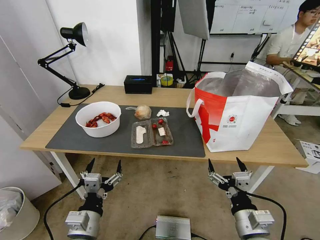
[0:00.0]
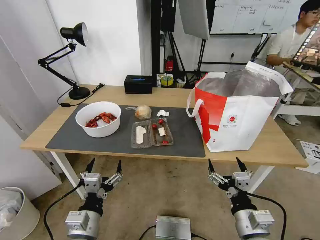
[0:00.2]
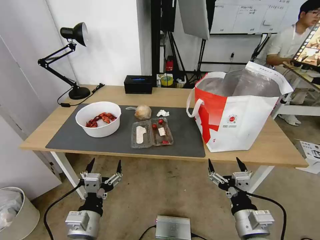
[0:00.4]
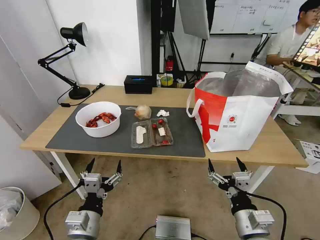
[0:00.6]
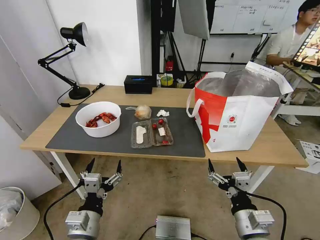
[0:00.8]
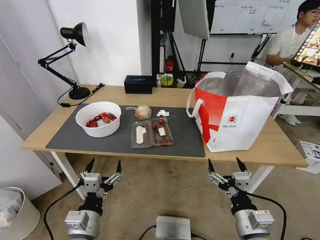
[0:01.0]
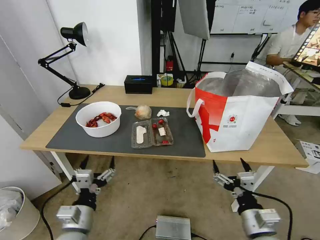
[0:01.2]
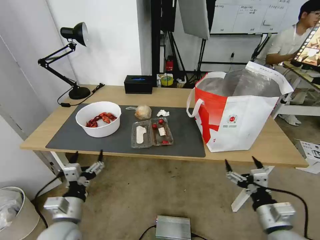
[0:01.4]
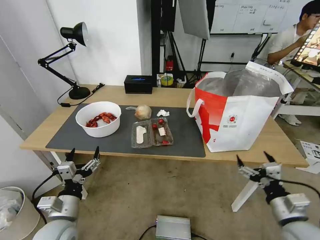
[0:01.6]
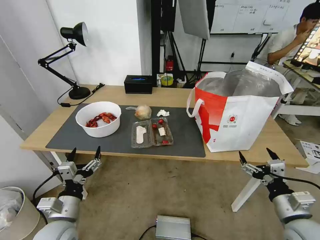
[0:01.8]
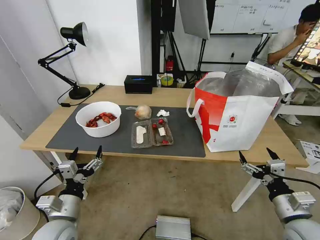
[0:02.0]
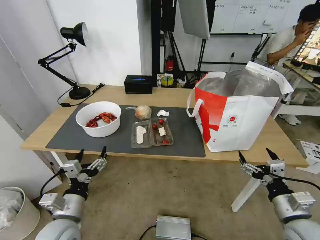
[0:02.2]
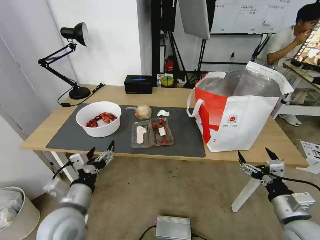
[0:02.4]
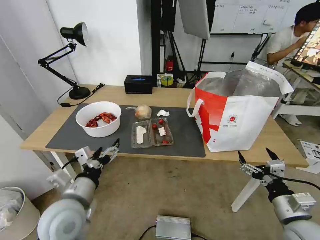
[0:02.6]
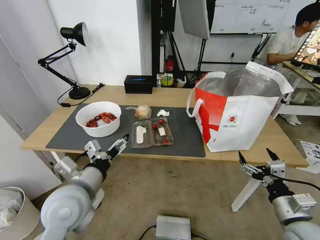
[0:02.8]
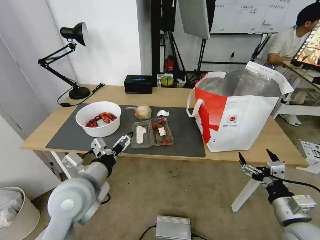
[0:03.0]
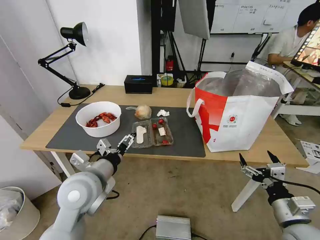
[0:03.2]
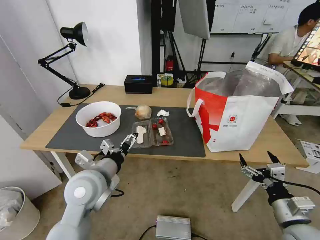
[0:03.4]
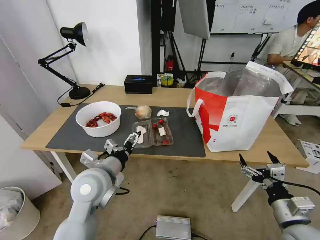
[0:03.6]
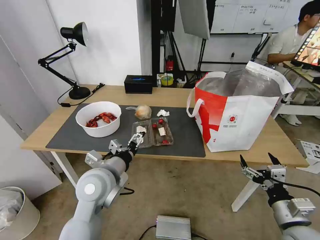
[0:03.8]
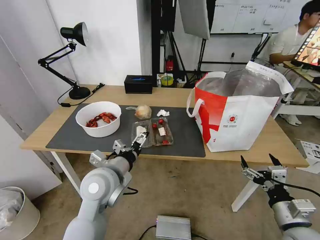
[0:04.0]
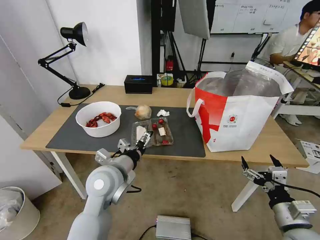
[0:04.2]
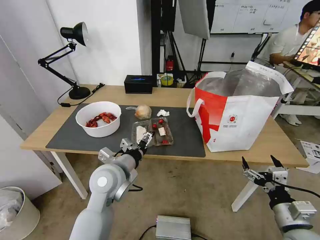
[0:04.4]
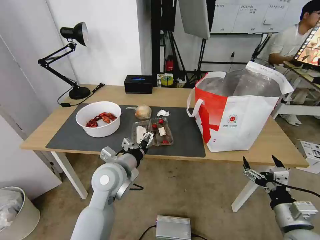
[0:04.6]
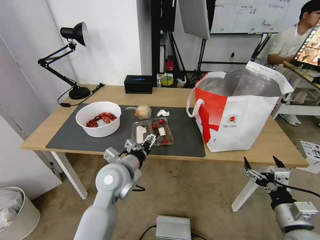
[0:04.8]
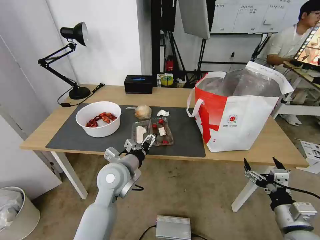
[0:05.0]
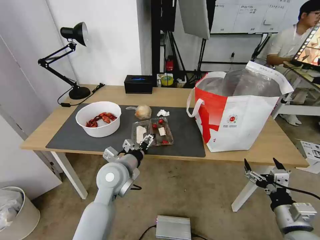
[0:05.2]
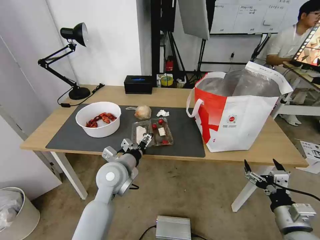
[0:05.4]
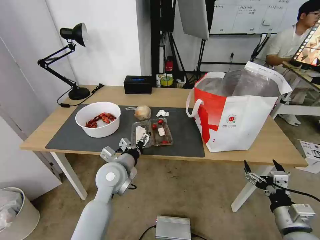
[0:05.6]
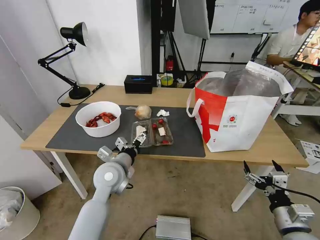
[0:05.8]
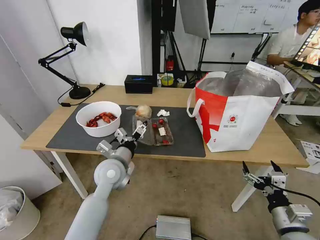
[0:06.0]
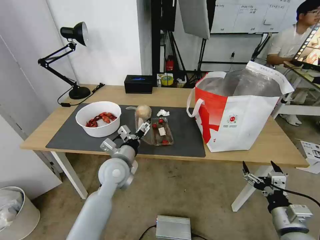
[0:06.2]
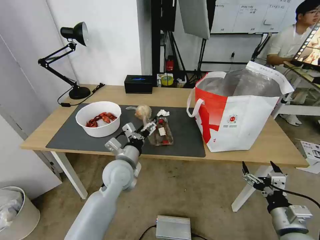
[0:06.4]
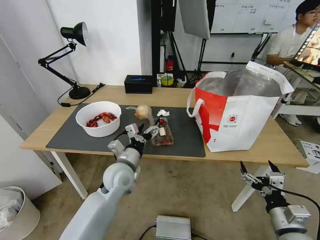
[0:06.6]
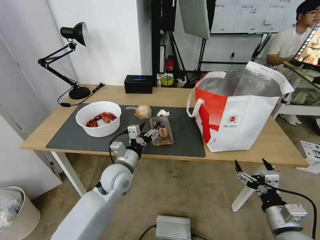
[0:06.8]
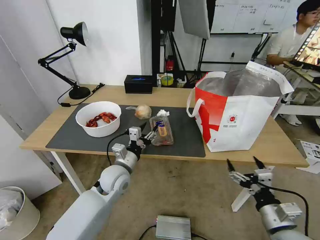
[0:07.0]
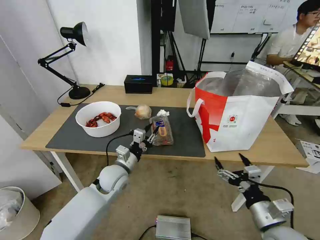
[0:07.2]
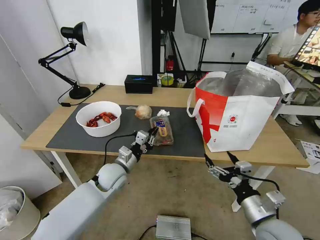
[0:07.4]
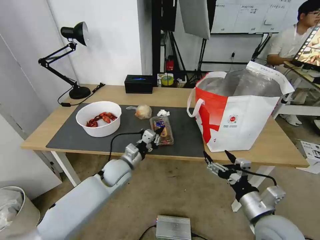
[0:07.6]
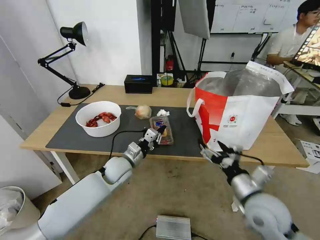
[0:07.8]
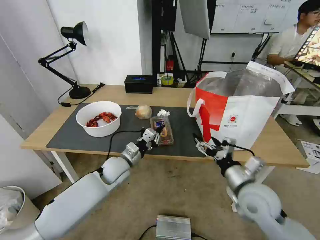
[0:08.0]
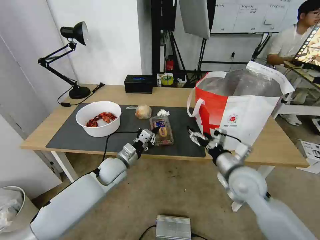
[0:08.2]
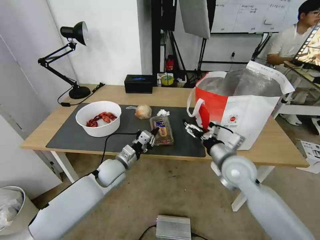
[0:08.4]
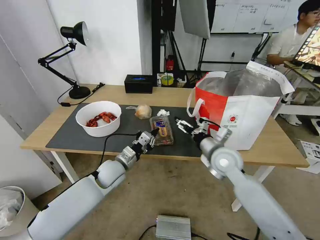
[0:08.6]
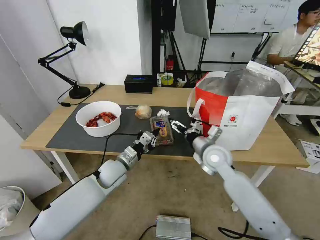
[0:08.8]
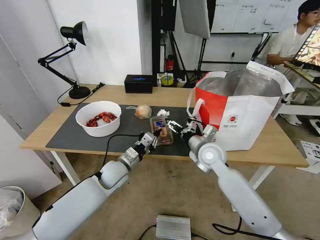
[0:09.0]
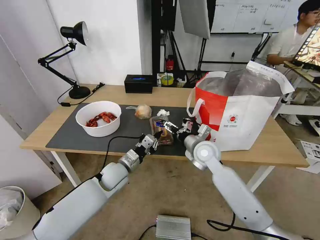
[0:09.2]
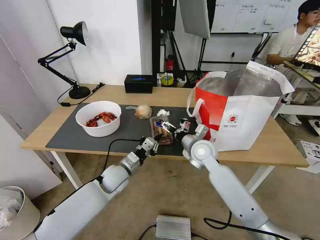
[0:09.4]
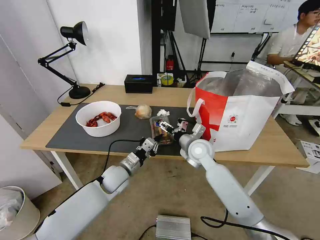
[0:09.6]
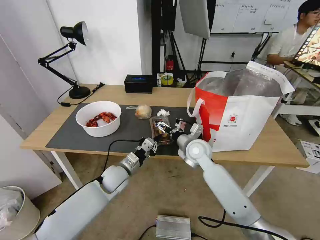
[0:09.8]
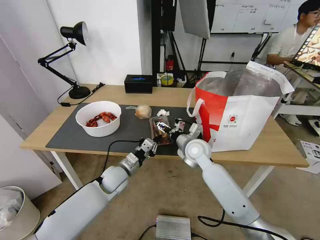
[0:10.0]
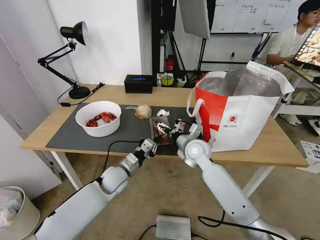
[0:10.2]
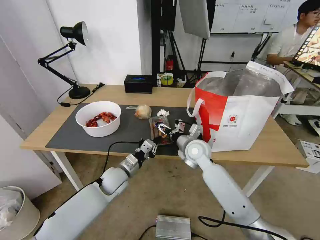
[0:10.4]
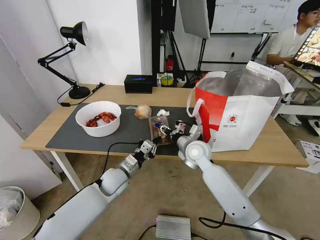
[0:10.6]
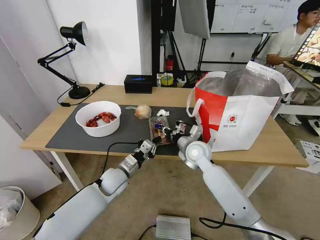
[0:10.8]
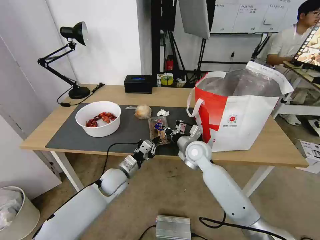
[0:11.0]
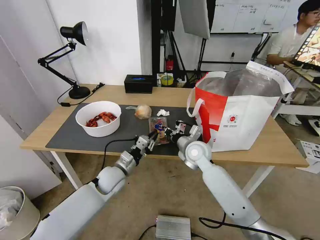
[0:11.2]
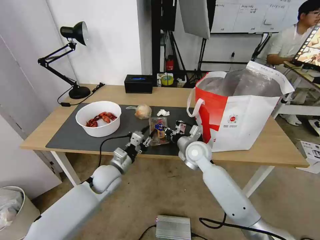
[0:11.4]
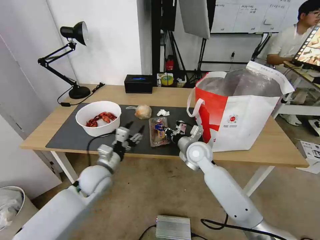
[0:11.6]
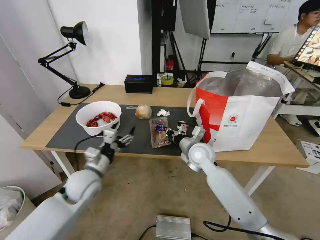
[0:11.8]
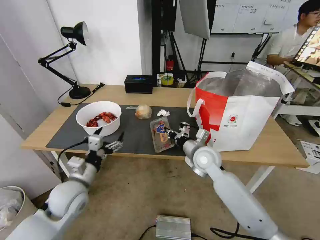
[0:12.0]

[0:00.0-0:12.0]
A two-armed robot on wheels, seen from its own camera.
Task of the whole recording: Pick up the trash from the table and place it into the takeout bag.
0:01.6 to 0:03.0: The left gripper is displaced upward, to the right and forward by roughly 15 cm.
0:03.0 to 0:04.4: The left gripper shifts roughly 10 cm to the right and forward.
0:04.4 to 0:06.0: The left gripper changes place by about 5 cm.
0:06.0 to 0:07.6: The left gripper heads downward, covering approximately 5 cm, and closes up. The right gripper moves to the left, roughly 10 cm.
0:07.6 to 0:09.0: The right gripper shifts roughly 25 cm forward and to the left.
0:09.0 to 0:10.4: The grippers stay close to where they were, moving slightly.
0:10.4 to 0:12.0: The right gripper closes up, while the left gripper is displaced to the left, backward and upward by roughly 15 cm, and opens its fingers.

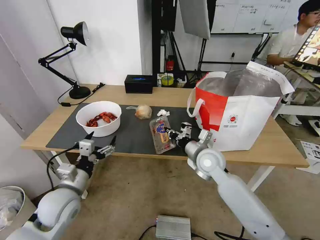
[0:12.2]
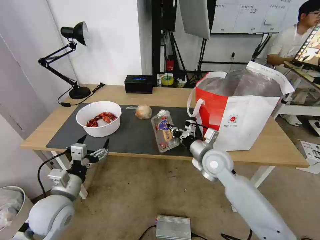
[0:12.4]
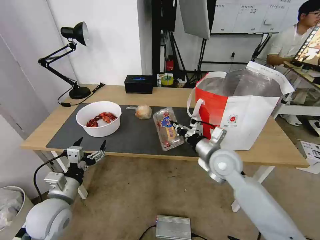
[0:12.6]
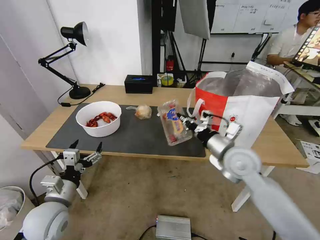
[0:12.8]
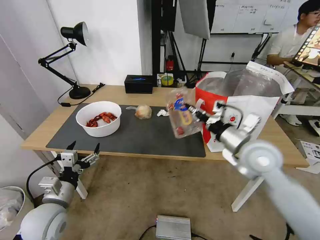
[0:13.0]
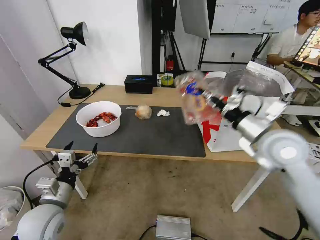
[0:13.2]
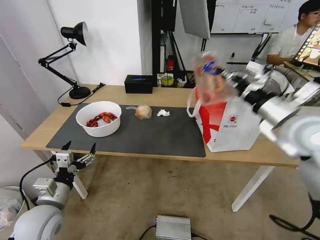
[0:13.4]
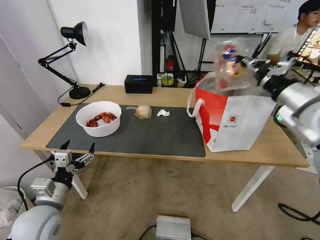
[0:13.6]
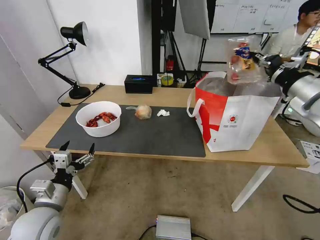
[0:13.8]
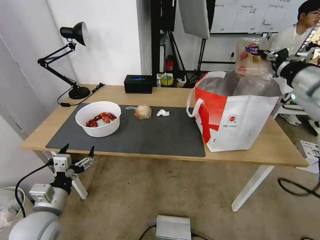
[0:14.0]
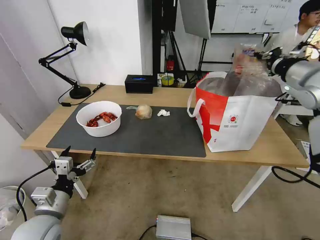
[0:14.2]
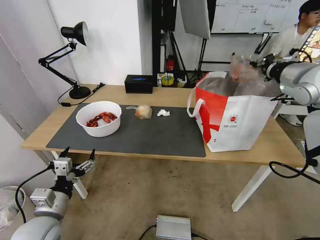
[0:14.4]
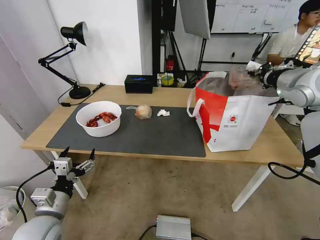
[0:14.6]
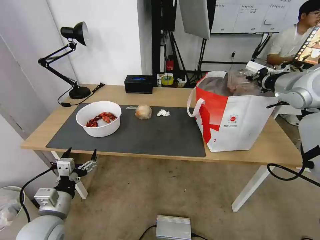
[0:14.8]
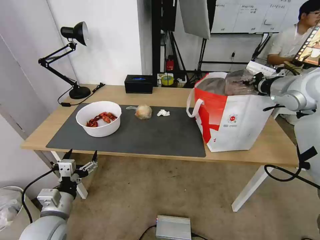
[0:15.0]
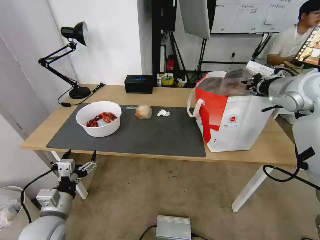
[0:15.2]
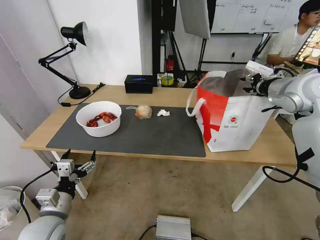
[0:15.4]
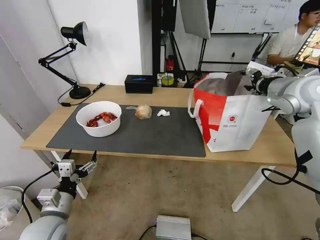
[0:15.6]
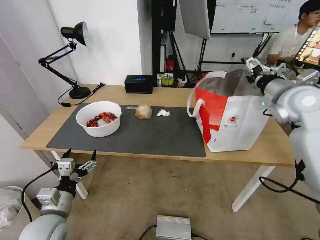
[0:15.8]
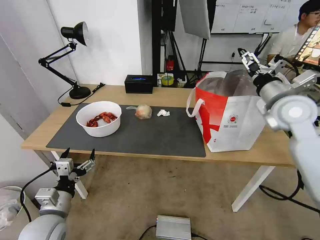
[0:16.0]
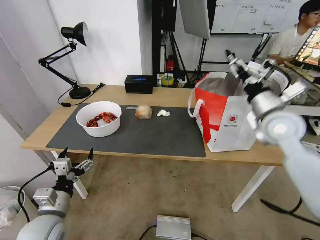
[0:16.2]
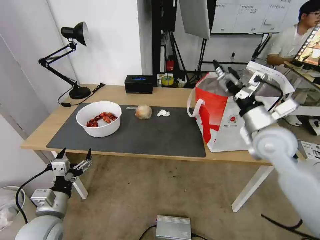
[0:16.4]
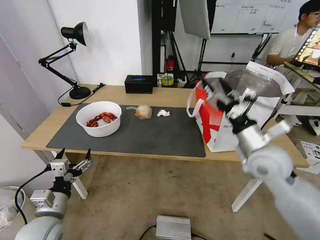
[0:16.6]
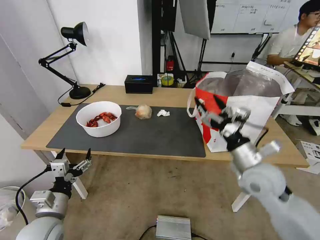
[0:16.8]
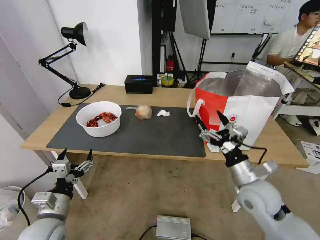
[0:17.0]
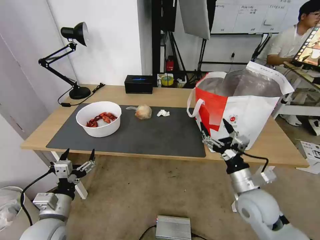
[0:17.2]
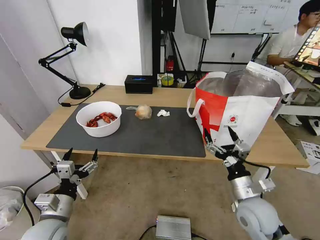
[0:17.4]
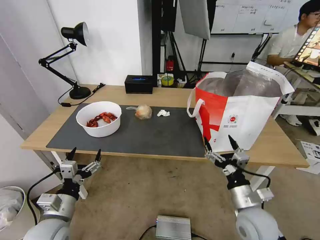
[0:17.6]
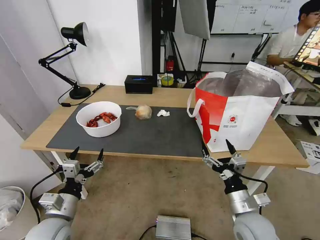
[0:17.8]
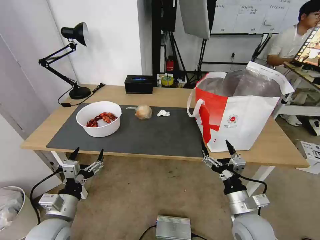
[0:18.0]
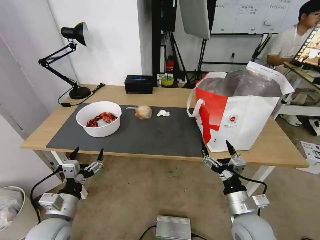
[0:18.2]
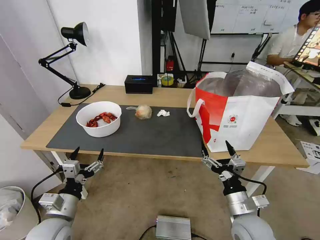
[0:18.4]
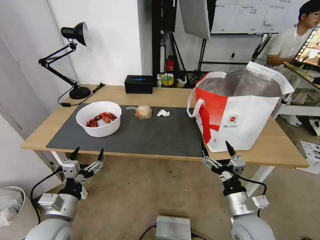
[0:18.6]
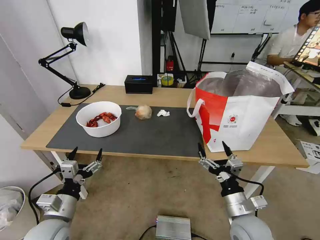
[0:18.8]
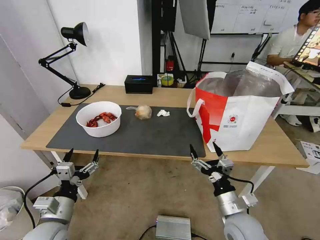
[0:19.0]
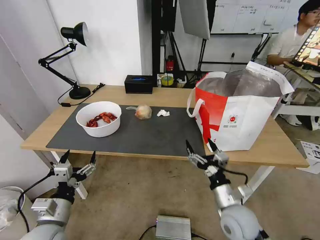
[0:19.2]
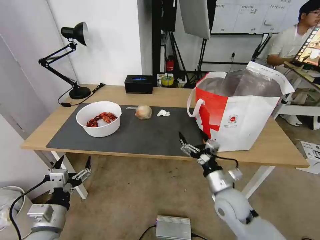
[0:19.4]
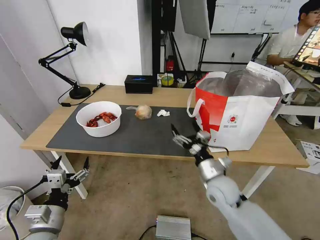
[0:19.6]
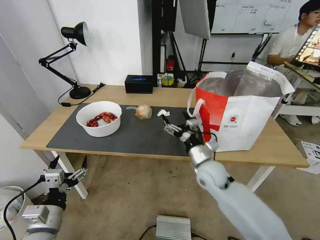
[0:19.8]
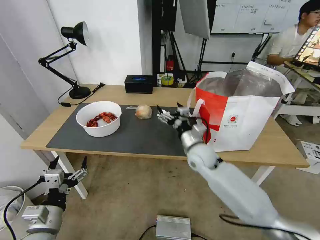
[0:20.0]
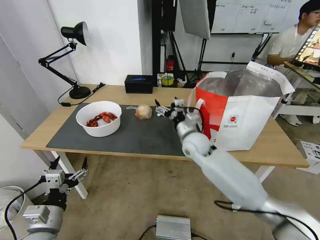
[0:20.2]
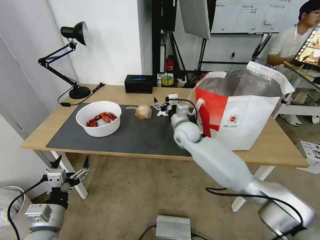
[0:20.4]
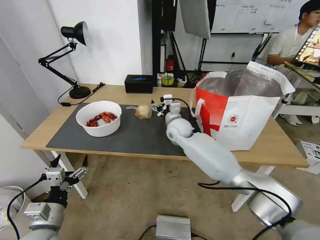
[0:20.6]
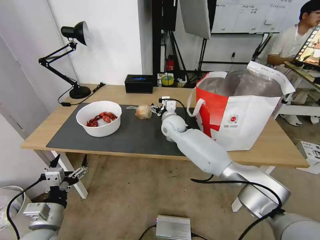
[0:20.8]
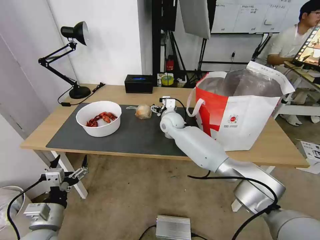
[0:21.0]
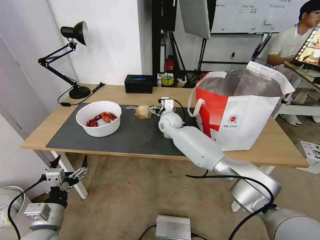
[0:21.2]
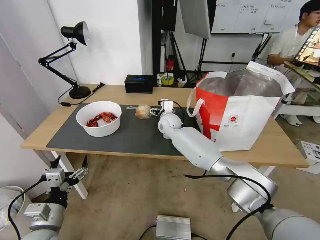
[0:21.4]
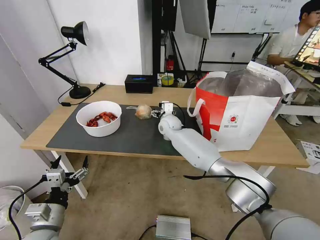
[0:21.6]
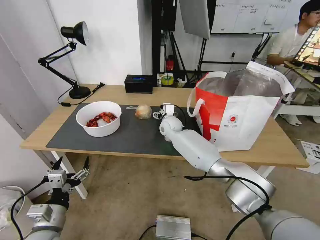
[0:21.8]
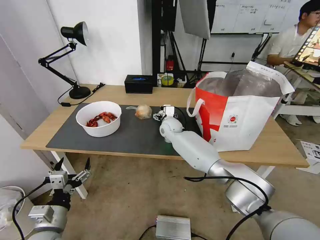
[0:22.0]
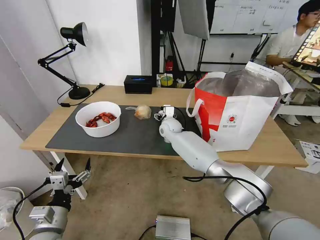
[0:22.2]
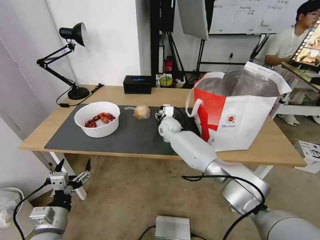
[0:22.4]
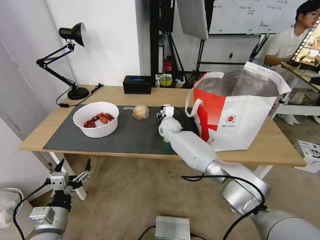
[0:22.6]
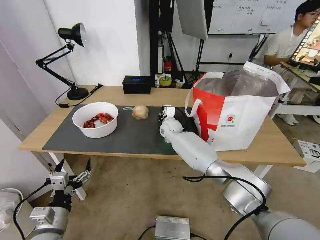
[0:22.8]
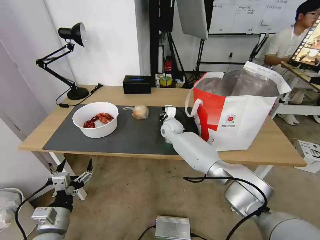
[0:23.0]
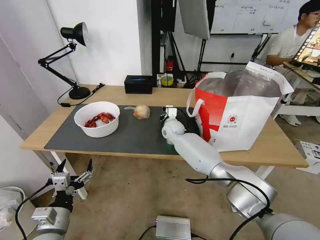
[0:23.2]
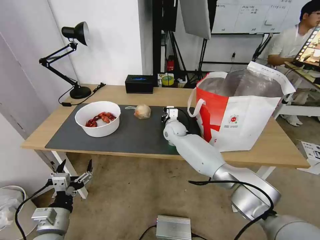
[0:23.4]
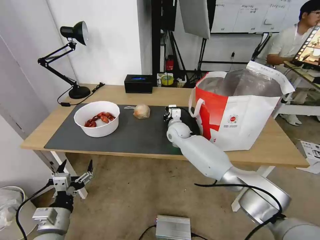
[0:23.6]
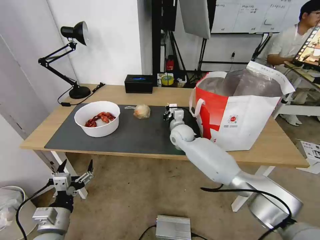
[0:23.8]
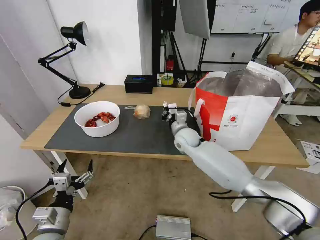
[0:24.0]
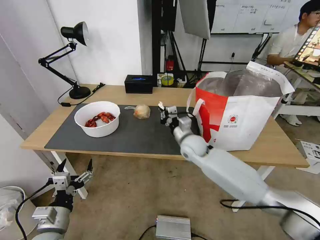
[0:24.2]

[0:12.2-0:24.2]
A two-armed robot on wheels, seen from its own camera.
Task of the whole recording: Pick up the trash from the table and place it into the takeout bag.
0:12.2 to 0:13.8: The right gripper moves upward and to the right, approximately 30 cm. Meanwhile the left gripper shifts by some 5 cm.
0:13.8 to 0:15.2: The right gripper is displaced forward by roughly 10 cm.
0:15.2 to 0:16.6: The right gripper heads downward, backward and to the left, covering approximately 20 cm, and opens up.
0:16.6 to 0:18.2: The right gripper moves downward and backward, roughly 20 cm.
0:18.2 to 0:19.8: The right gripper is displaced forward and to the left by about 20 cm.
0:19.8 to 0:21.2: The right gripper moves forward and to the left, some 25 cm.
0:21.2 to 0:22.6: The right gripper closes its fingers.
0:22.6 to 0:24.2: The right gripper goes some 15 cm backward and to the right, and closes up.
